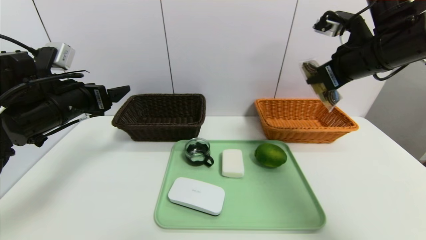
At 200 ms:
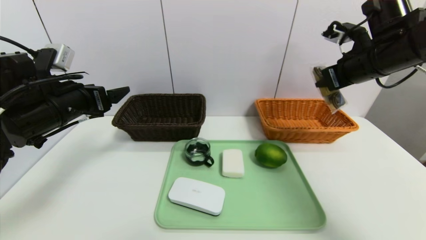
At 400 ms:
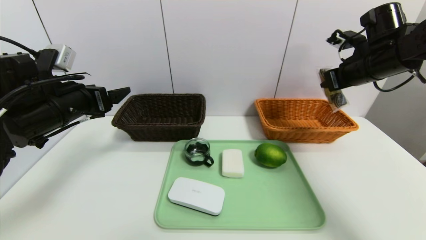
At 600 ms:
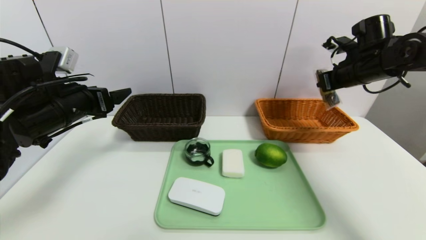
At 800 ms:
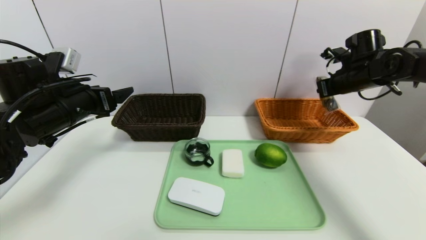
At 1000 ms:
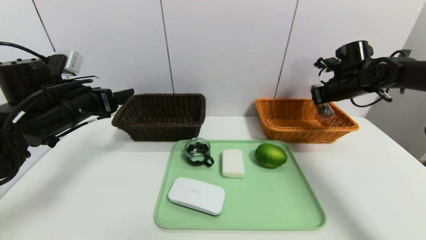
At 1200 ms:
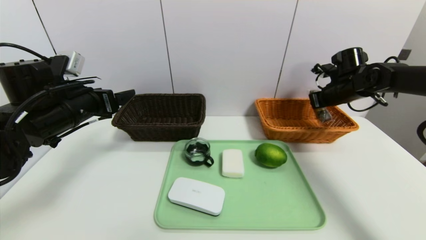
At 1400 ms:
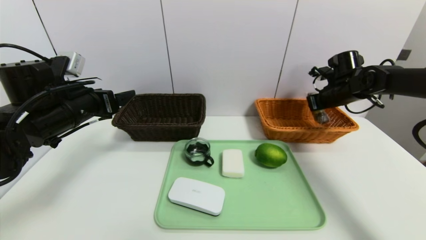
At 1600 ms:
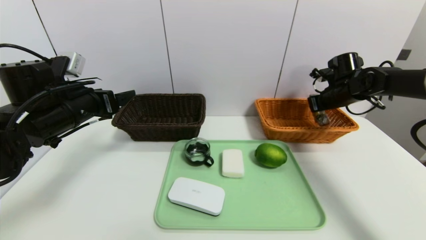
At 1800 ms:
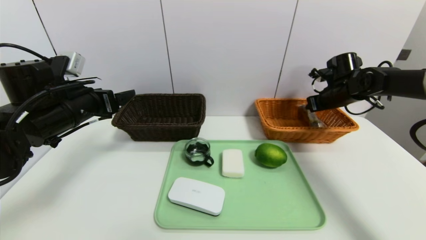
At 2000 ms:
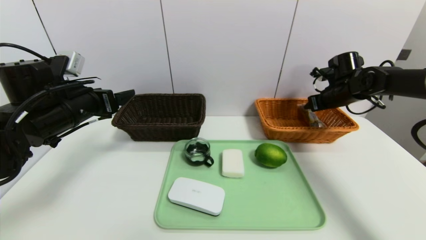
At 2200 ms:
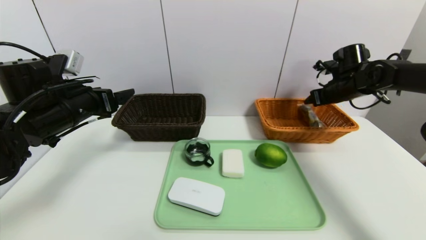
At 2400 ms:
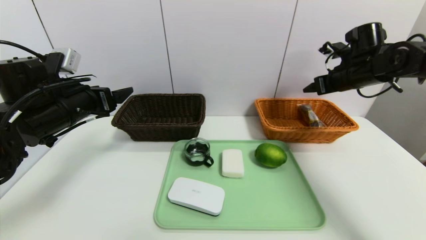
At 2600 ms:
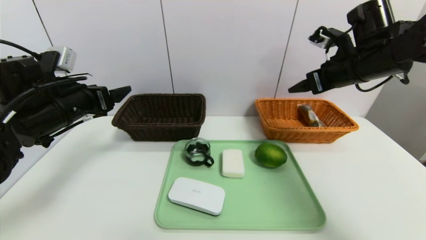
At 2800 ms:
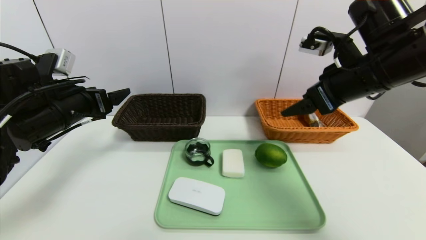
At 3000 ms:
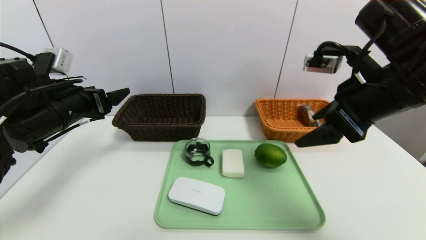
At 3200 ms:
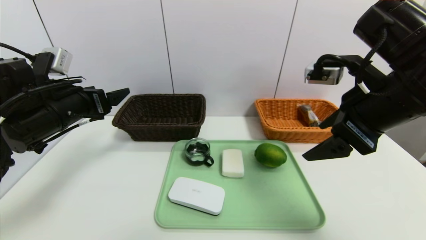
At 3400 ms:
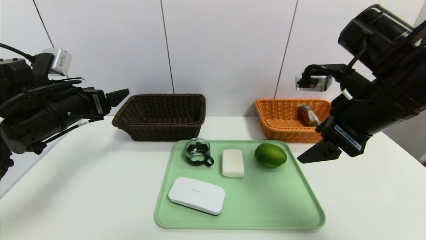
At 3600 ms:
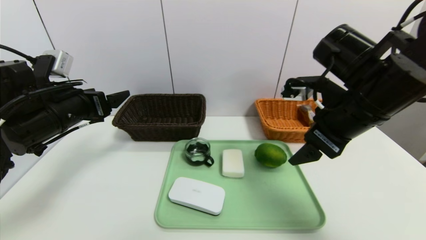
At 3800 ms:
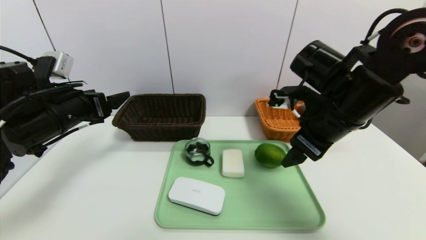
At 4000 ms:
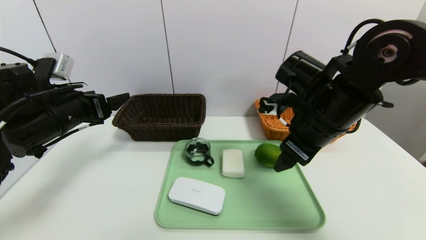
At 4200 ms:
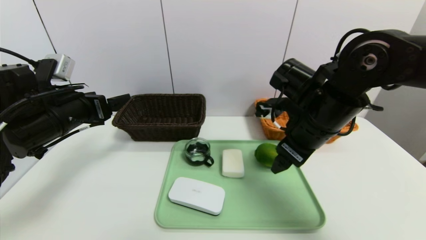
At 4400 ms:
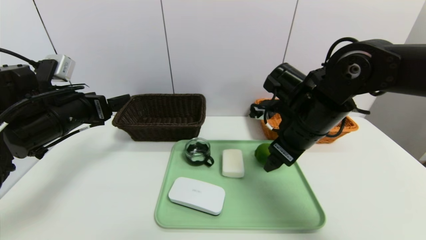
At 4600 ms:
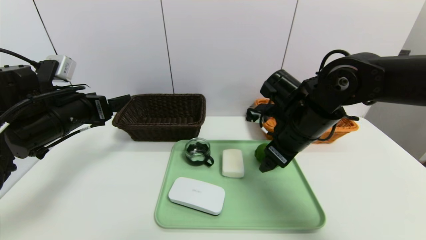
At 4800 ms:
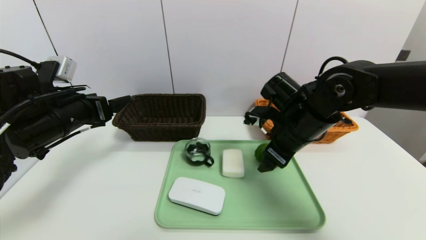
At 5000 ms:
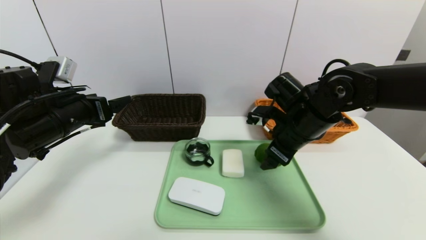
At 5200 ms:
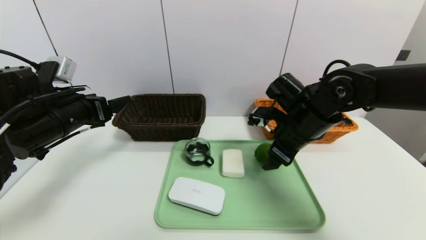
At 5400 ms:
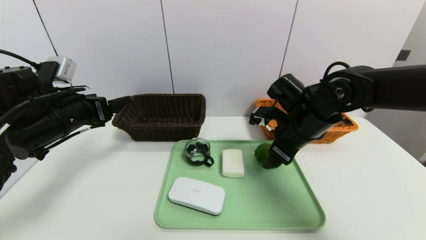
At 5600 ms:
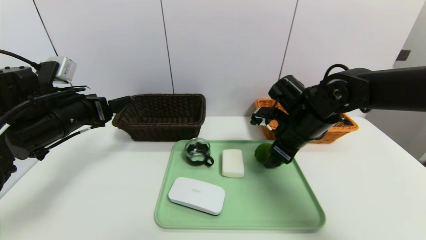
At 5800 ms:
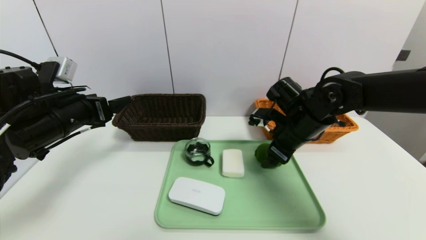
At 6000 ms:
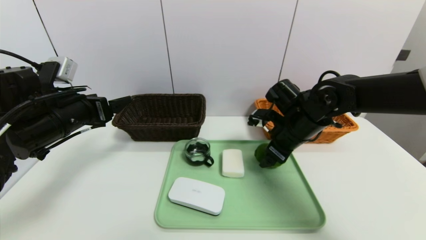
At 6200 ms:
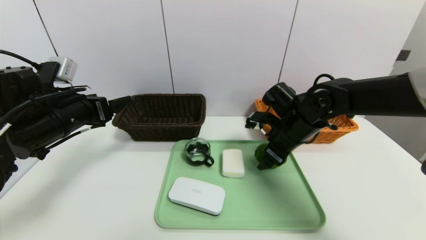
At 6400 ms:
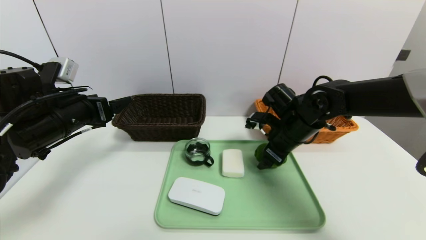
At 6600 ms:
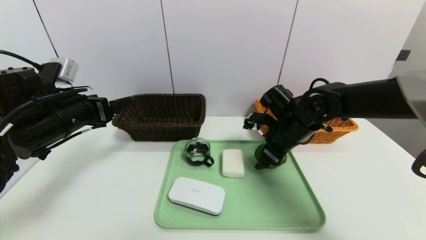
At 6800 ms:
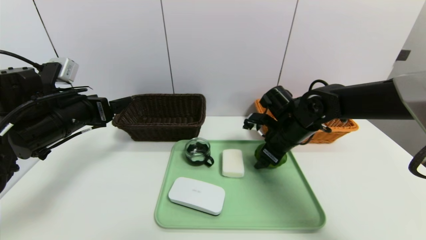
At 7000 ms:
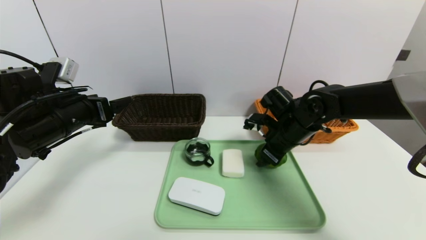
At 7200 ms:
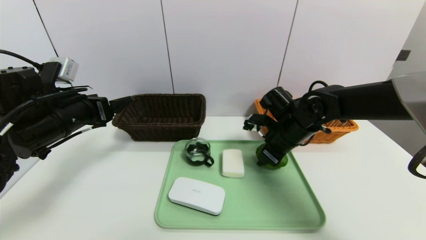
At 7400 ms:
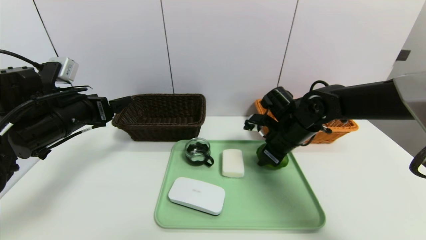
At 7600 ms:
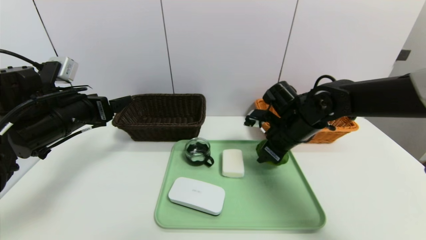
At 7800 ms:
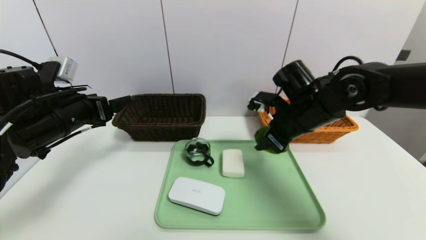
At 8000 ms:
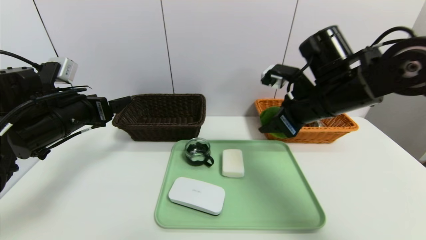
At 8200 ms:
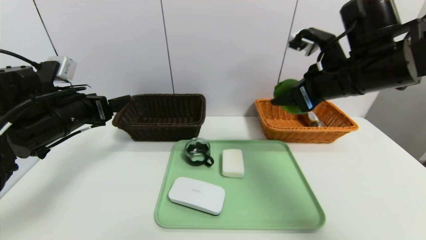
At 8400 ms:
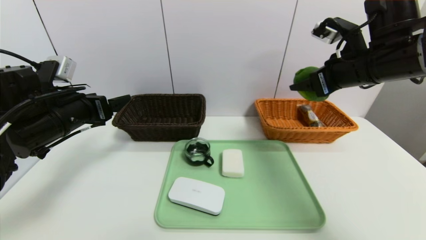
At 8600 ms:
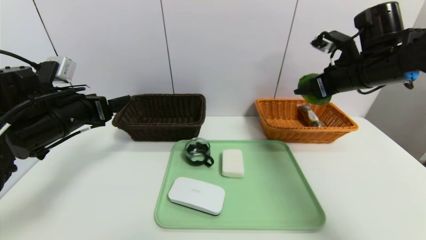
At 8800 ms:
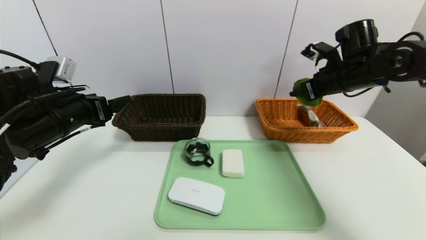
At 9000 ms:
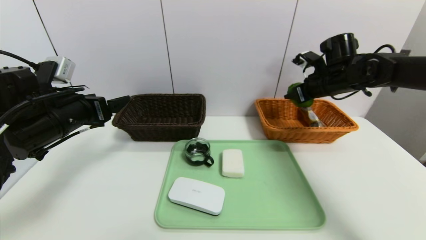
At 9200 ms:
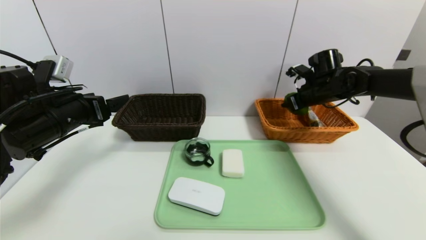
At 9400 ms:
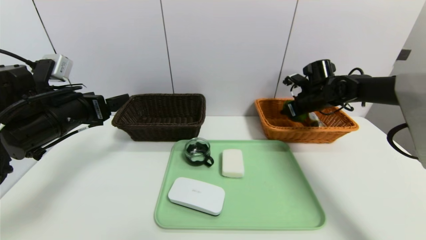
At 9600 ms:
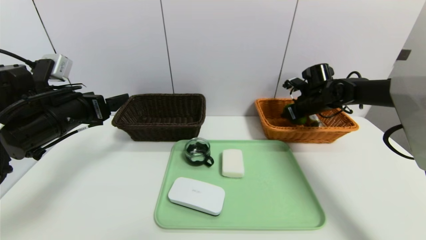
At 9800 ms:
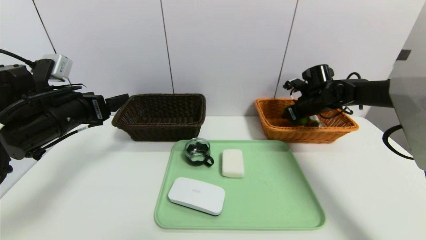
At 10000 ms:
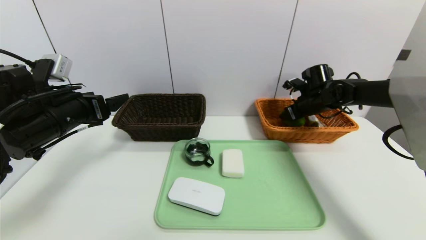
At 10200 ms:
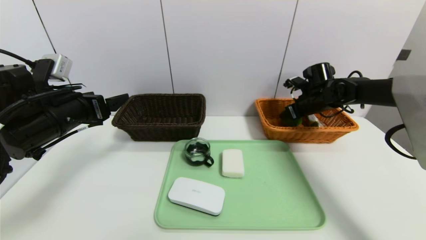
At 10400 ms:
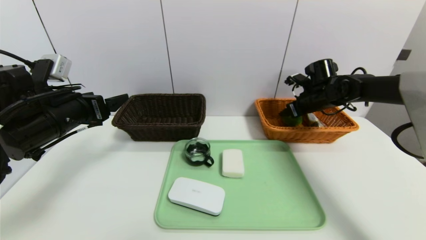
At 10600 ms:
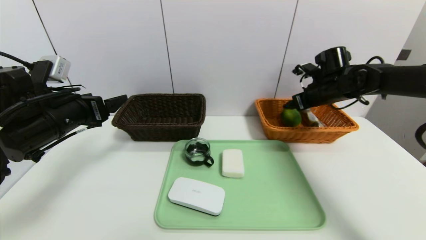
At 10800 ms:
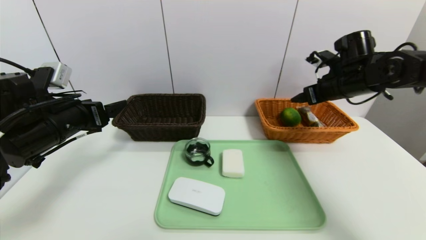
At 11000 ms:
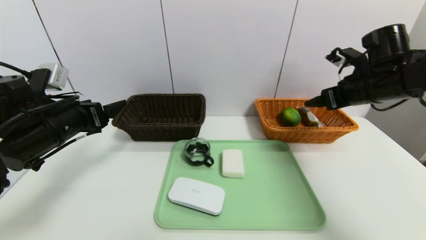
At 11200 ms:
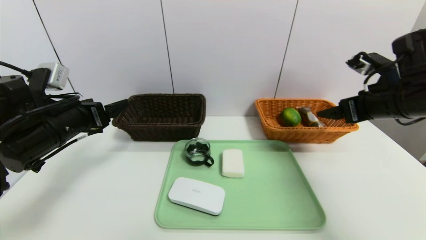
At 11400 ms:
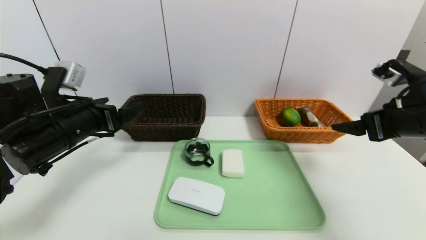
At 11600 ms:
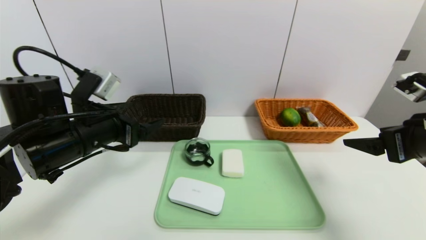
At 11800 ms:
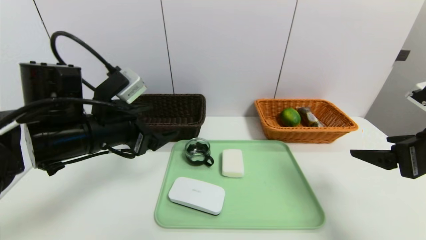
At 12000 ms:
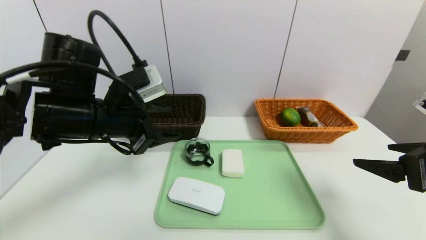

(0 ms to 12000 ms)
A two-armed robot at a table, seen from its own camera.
Task of the whole recording: place the food in the right basket with the right gripper, and place the non food items in the left basket with the left gripper.
Step, 0 ms - 2200 ms: Grasp the chocolate and put it in the right basket.
Step, 2400 ms - 10800 ms: Grasp the lime and put it in the right basket.
0 ms - 1600 ms: The right gripper shifts approximately 20 cm forward, downward and to the right.
1600 ms - 3000 ms: The right gripper heads backward, to the left and upward, covering some 30 cm, and opens.
3000 ms - 4400 ms: The right gripper moves downward, to the left and forward, about 15 cm.
4400 ms - 6000 ms: The right gripper shifts some 5 cm downward.
6000 ms - 7600 ms: The right gripper closes.
7600 ms - 9000 ms: The right gripper is displaced to the right, forward and upward by about 15 cm.
9000 ms - 10400 ms: The right gripper ends up roughly 5 cm from where it was.
10400 ms - 12000 ms: The left gripper shifts about 10 cm to the right, and closes its fingers. The right gripper moves backward, approximately 30 cm.

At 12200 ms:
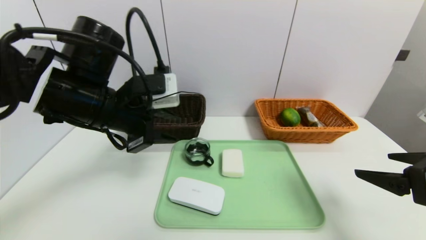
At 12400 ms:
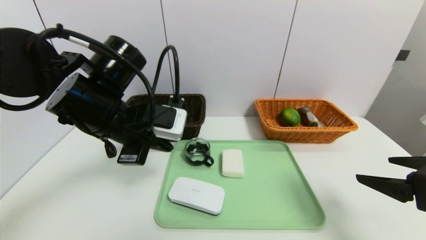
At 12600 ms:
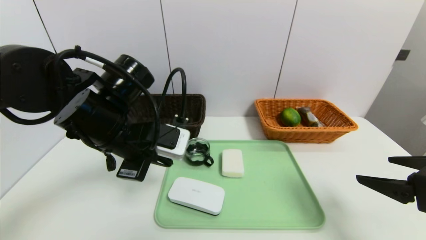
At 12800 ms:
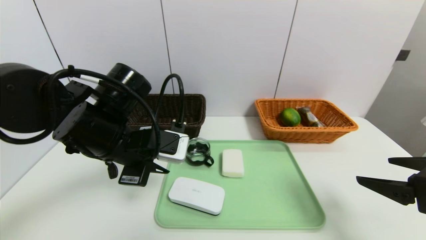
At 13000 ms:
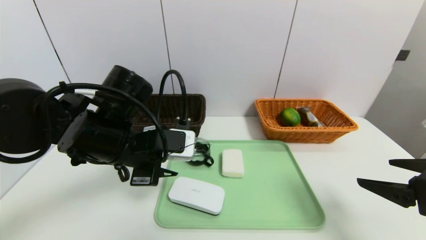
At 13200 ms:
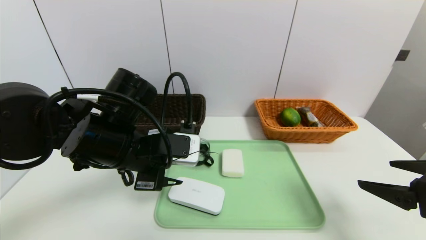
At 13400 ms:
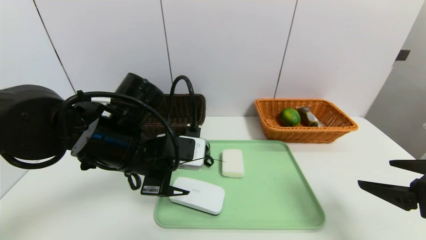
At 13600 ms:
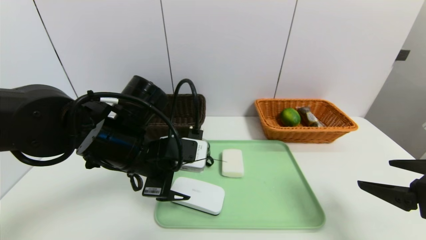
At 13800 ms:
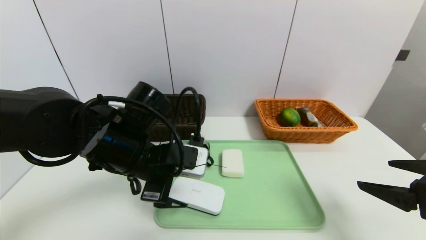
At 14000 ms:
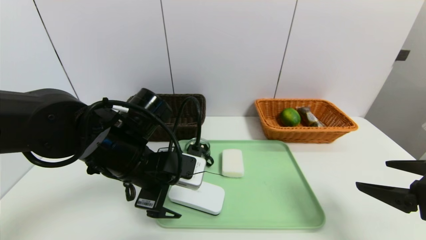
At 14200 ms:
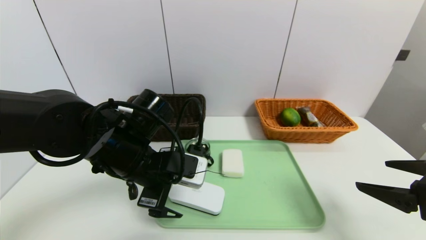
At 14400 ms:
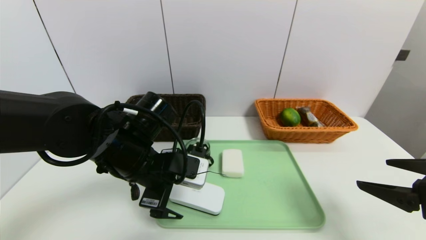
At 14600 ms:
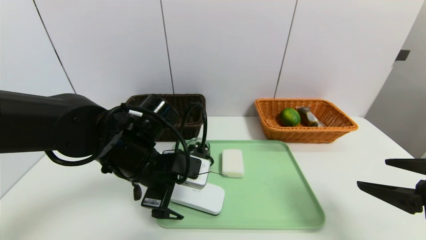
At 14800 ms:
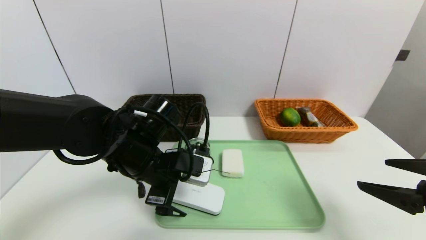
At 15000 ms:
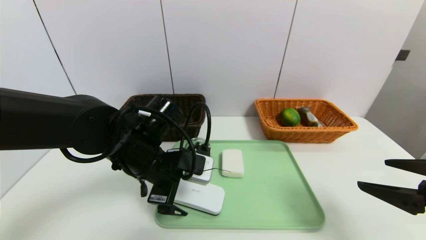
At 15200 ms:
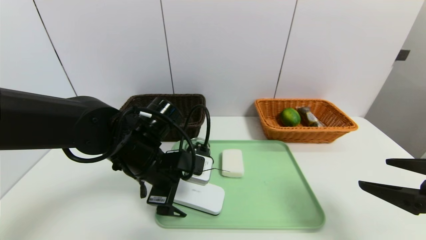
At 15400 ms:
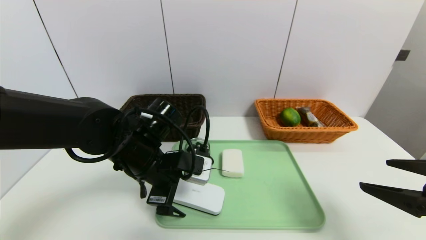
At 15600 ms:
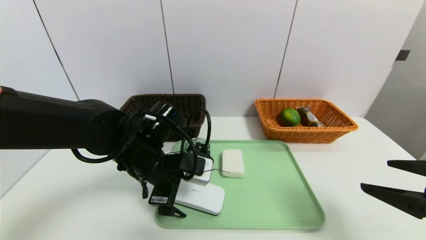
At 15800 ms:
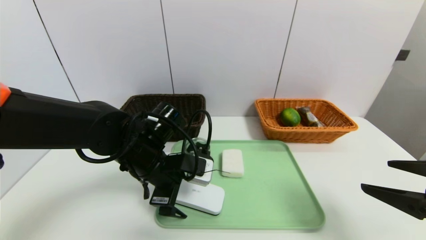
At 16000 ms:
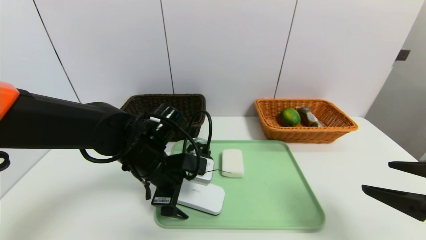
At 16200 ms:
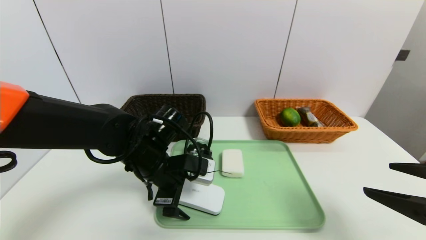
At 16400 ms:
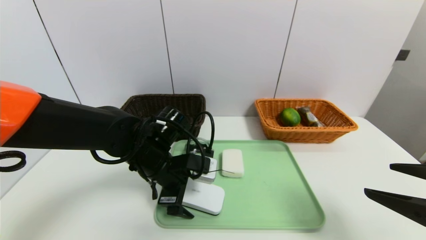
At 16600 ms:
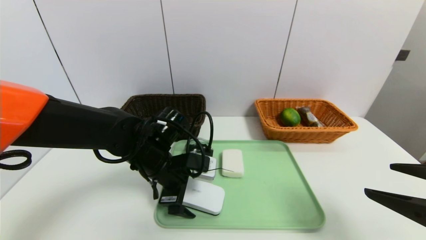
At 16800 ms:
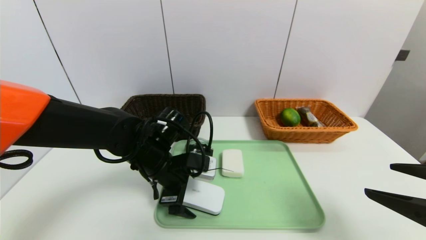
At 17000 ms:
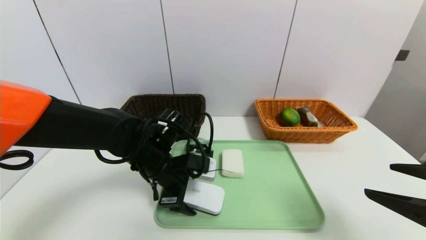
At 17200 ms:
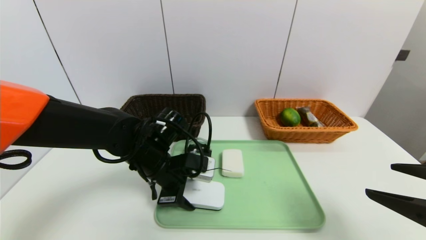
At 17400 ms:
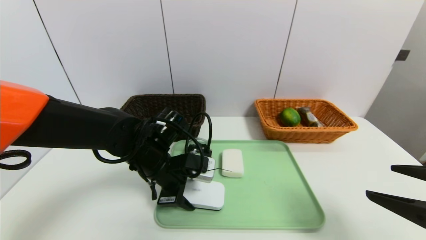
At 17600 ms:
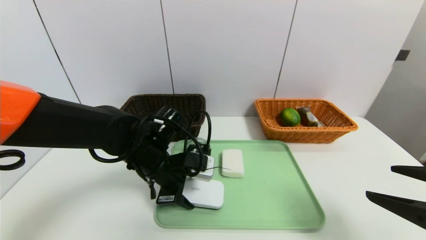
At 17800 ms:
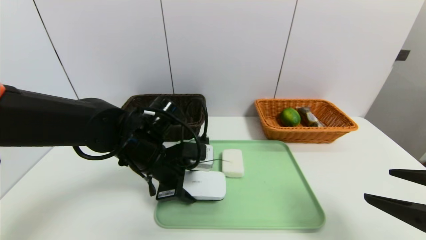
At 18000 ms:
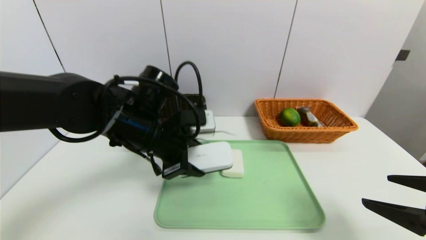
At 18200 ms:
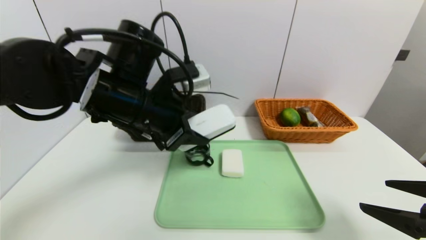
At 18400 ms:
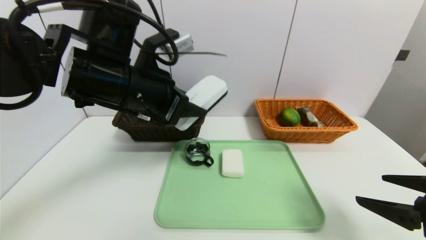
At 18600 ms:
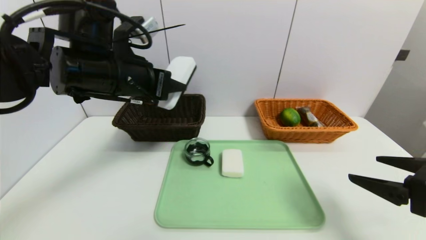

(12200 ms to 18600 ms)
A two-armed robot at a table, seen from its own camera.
Task of the whole recording: place the food in the right basket with the right gripper, and place the non food items in the left basket with the left gripper.
12200 ms - 13800 ms: The left gripper moves downward, about 10 cm, and opens its fingers.
13800 ms - 15400 ms: The grippers stay close to where they were, moving slightly.
15400 ms - 17000 ms: There are only small adjustments of the grippers.
17000 ms - 18600 ms: The left gripper is displaced upward by about 15 cm.
